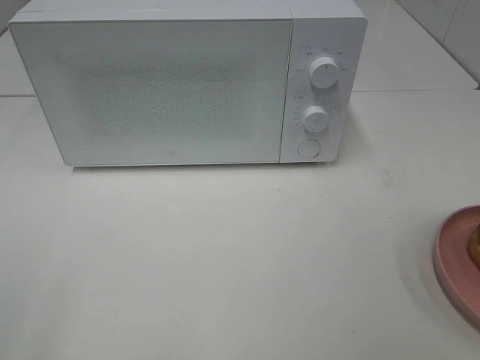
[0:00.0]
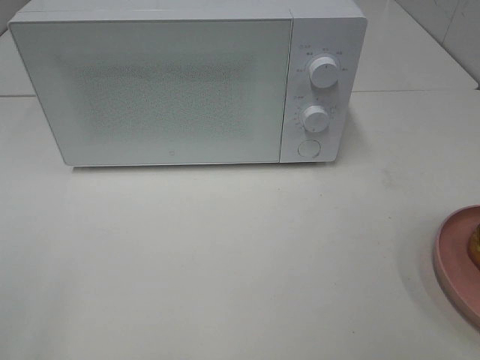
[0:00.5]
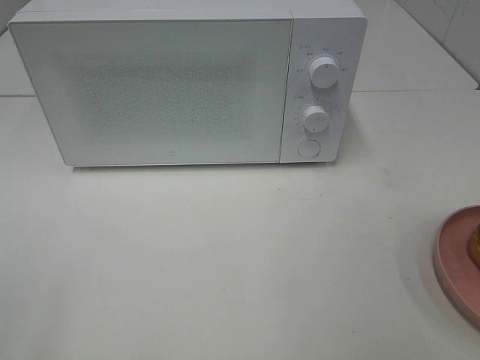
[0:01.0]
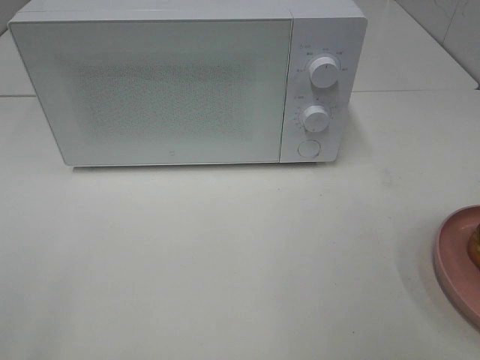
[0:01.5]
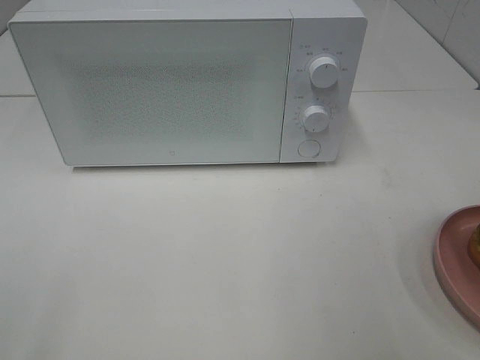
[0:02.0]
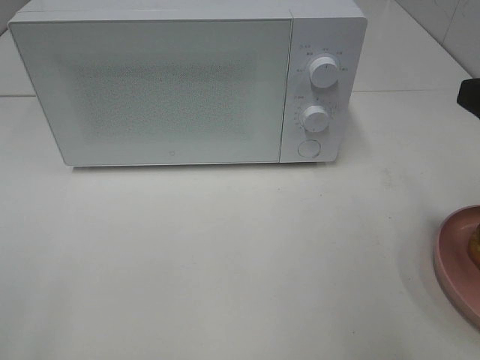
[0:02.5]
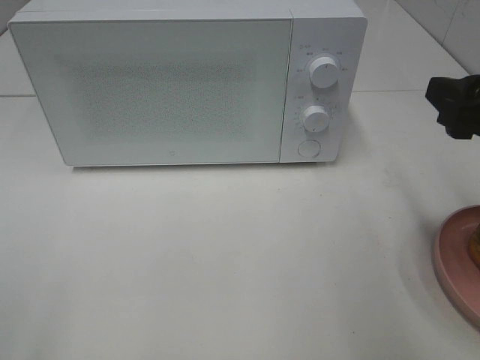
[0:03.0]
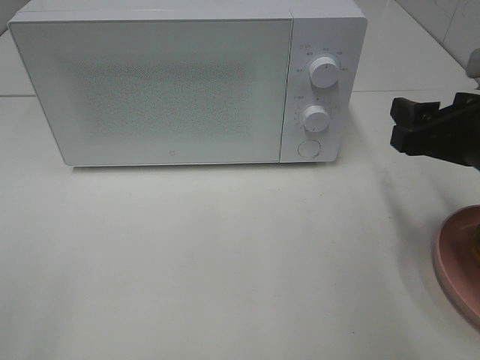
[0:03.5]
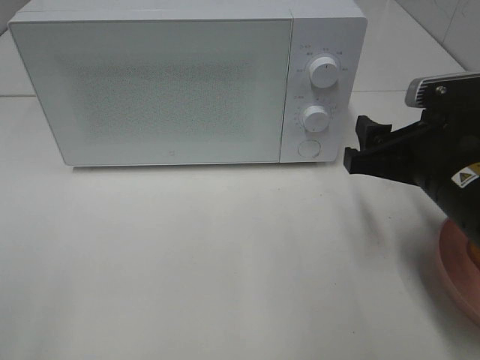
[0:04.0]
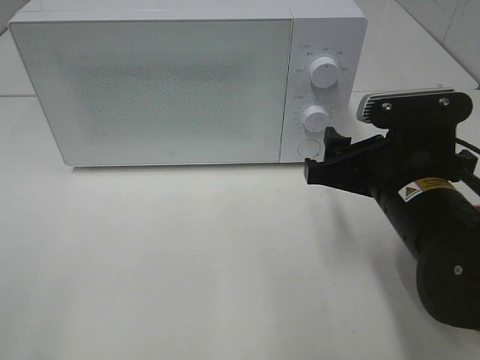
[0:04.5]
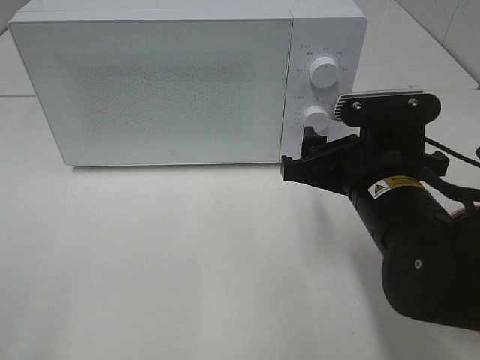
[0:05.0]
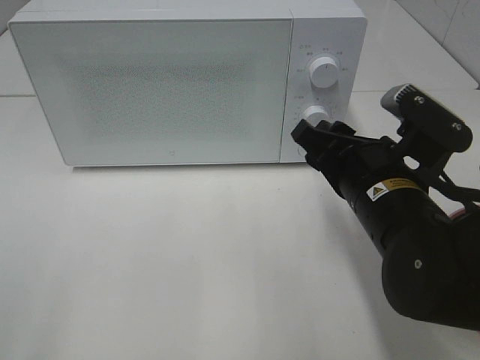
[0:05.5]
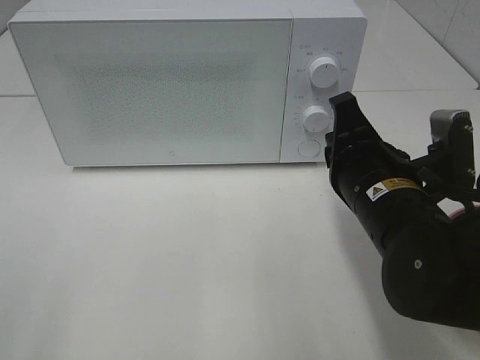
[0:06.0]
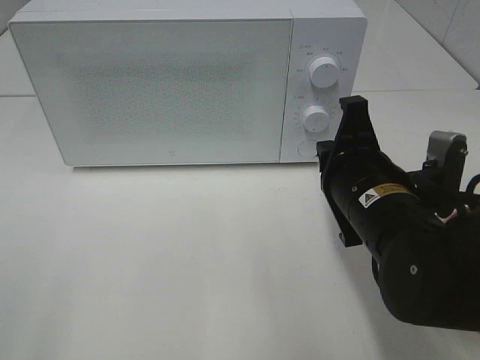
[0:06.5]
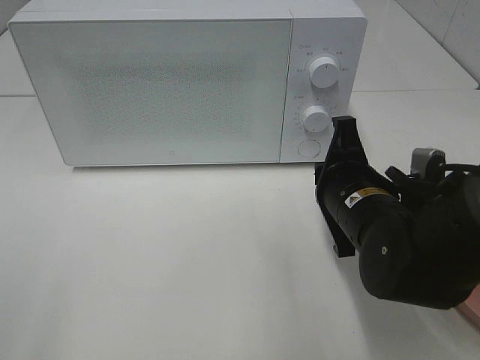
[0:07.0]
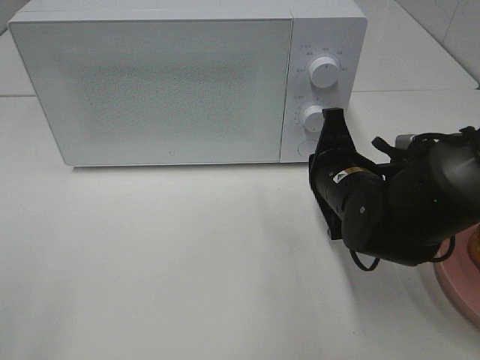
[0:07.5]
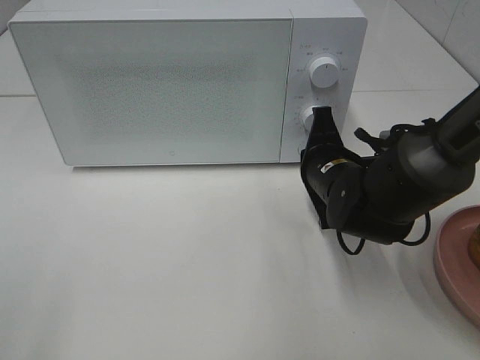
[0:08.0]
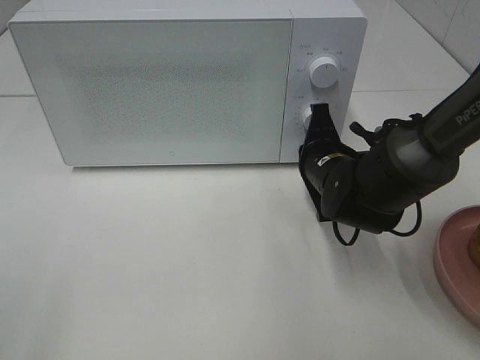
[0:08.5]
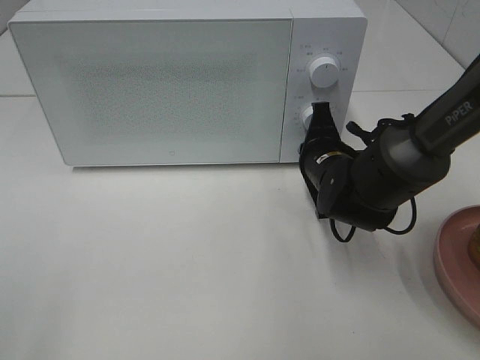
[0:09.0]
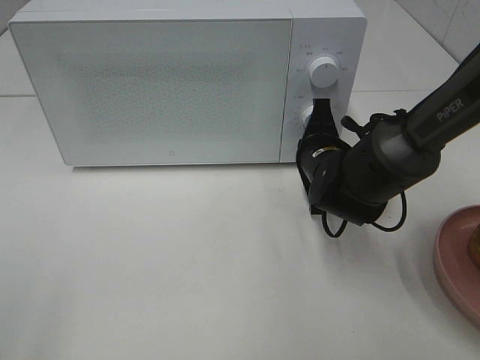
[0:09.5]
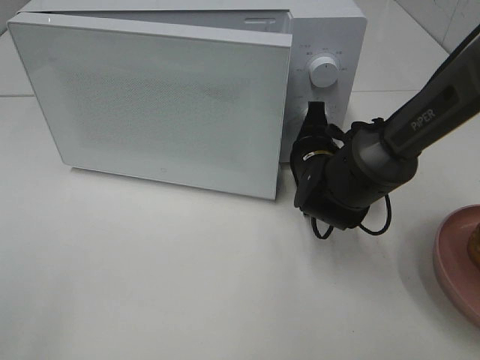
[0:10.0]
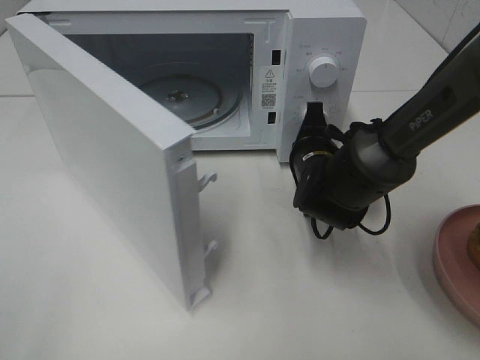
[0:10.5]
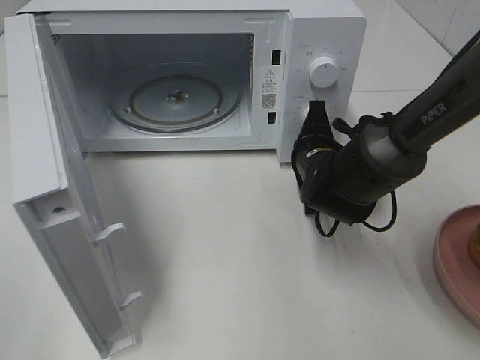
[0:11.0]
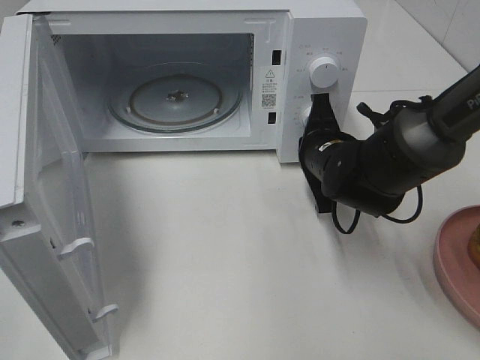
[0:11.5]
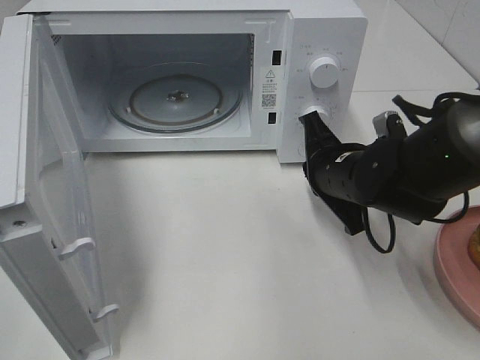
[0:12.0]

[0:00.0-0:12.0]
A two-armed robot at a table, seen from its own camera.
Task of the whole recording: Heat the burger.
Step, 0.0 to 11.5 s: Right hand: press the switch.
2.0 to 4.0 s: The right gripper goes about 15 cm downward, forward and to the left.
4.0 to 6.0 s: The right gripper heads to the left, covering roughly 5 cm, and closes its fingers.
6.0 to 8.0 s: The right gripper shifts some 10 cm forward and downward.
8.0 to 10.0 s: The grippers make only small movements.
10.0 to 12.0 s: The right gripper shifts approximately 5 cm backward.

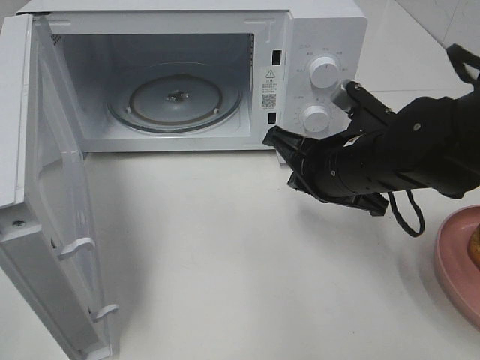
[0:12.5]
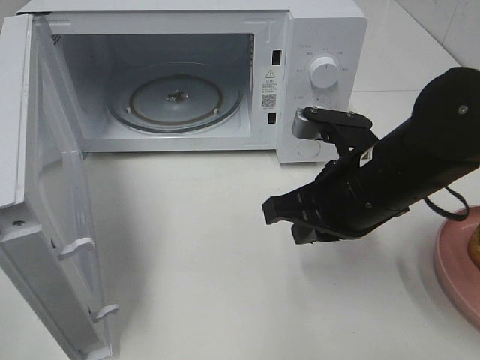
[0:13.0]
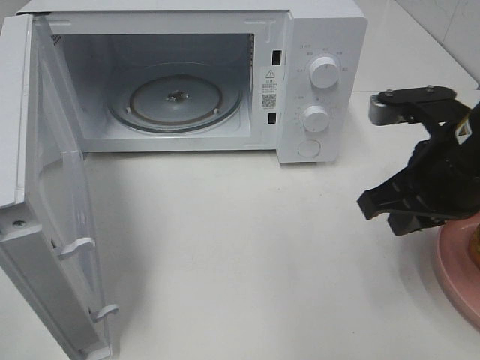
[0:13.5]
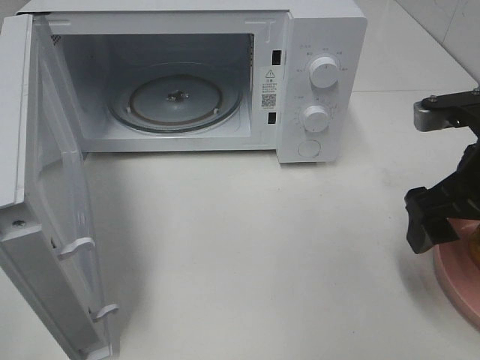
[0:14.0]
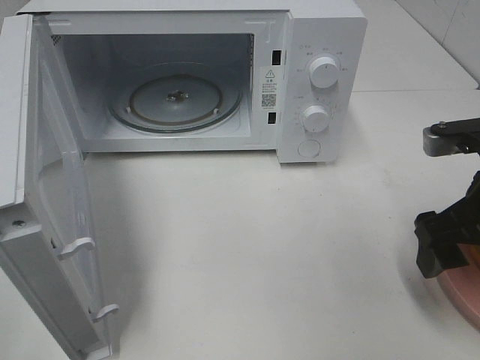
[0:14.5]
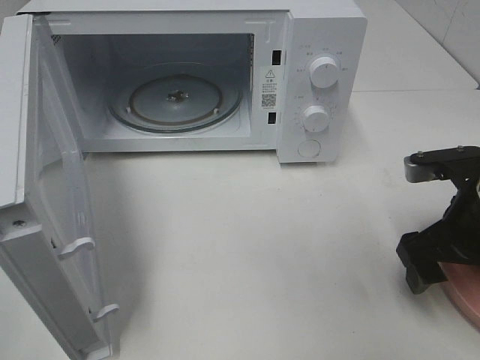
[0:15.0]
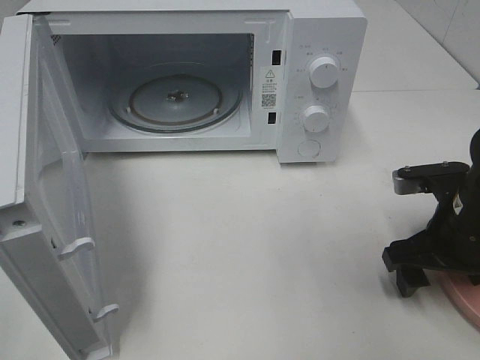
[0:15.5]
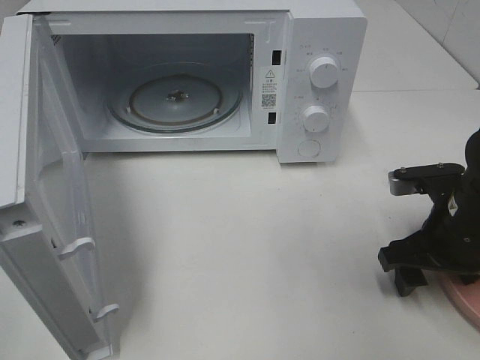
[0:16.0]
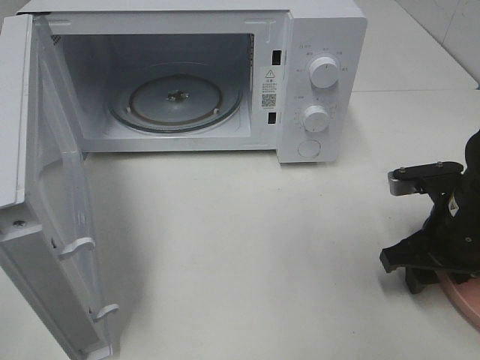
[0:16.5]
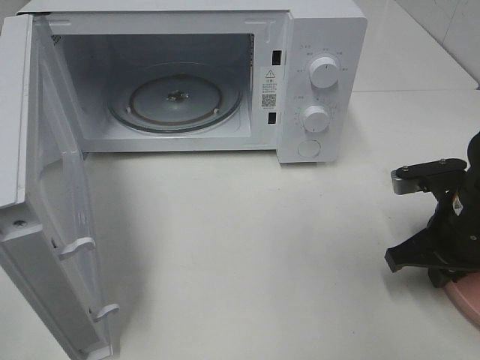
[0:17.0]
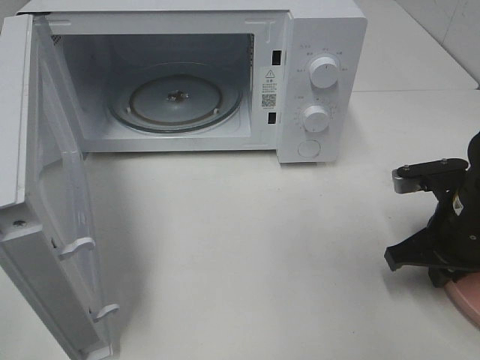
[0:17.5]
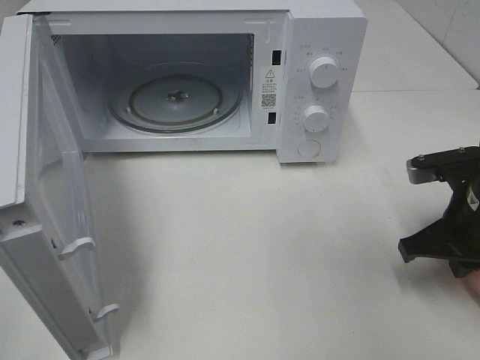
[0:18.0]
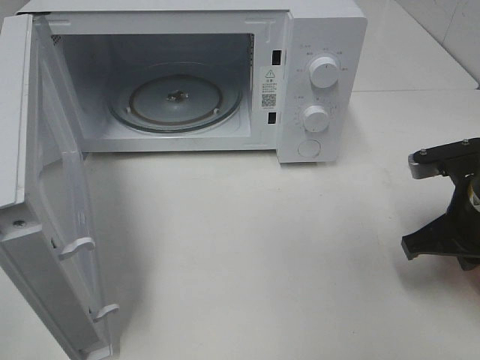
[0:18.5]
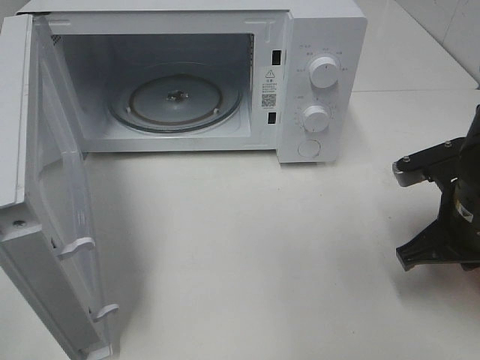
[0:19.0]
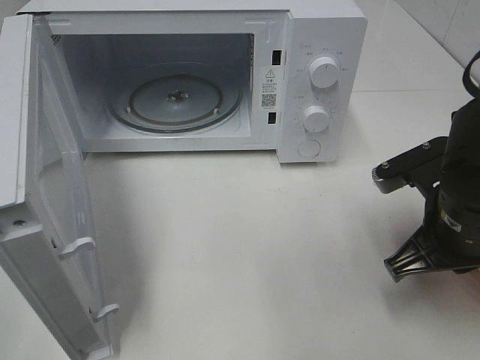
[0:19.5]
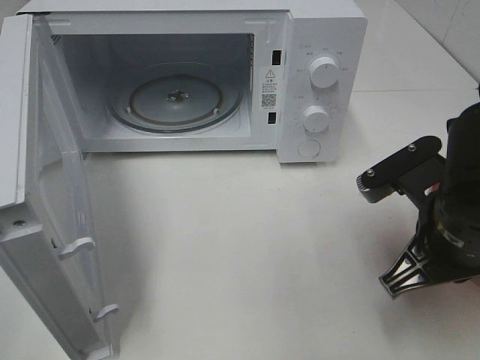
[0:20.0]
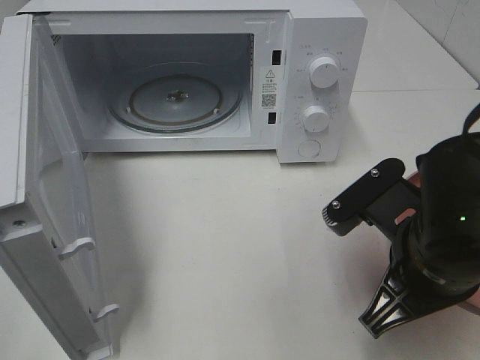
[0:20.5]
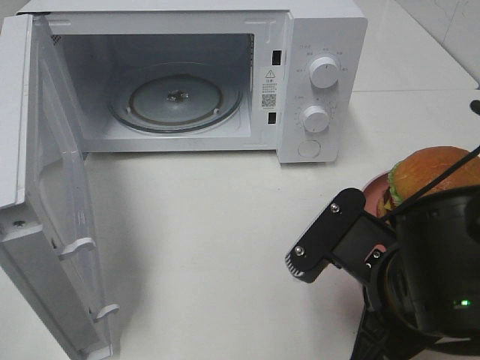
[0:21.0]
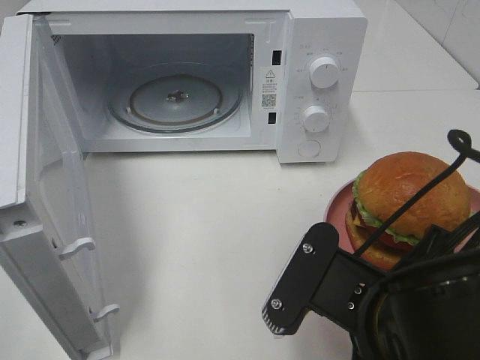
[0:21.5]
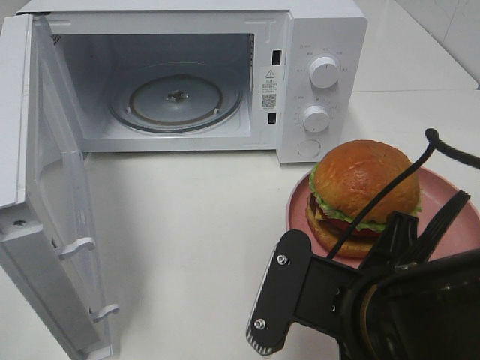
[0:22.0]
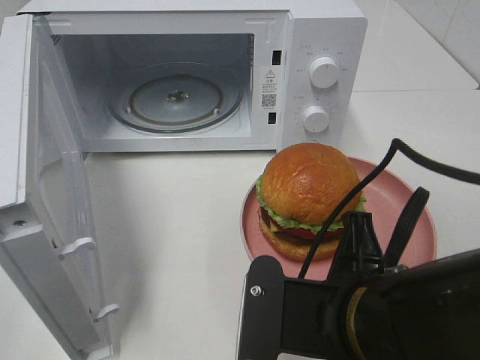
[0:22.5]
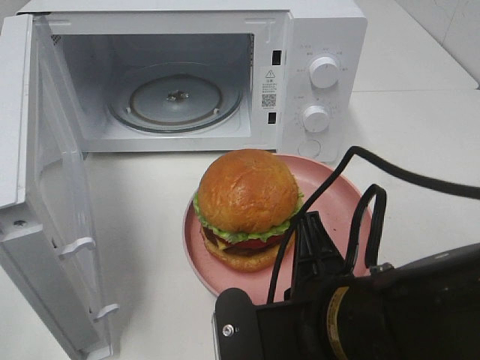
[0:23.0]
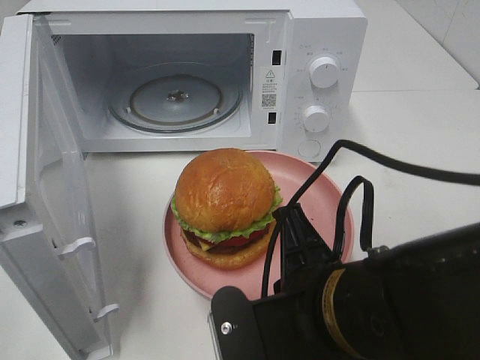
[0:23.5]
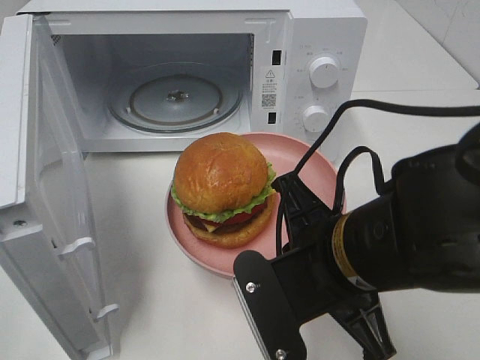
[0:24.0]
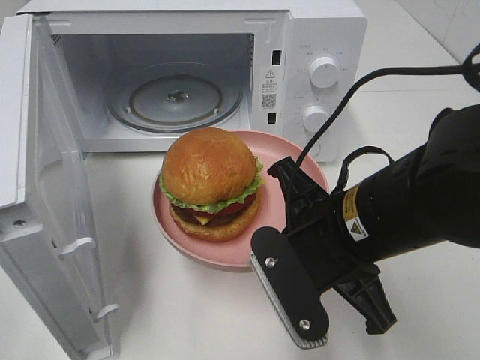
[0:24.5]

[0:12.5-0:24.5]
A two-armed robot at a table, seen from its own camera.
Task of the whole recording: Heat the burger.
Step, 12.5 to 17.5 s: Right hand: grab the plate with the hamburger.
12.5 to 14.5 s: The right gripper moves to the right and backward, about 15 cm, and opens its fingers.
14.5 to 16.5 s: The right gripper is displaced downward by some 10 cm.
16.5 to 18.5 s: The right gripper closes.
18.5 to 20.5 s: The right gripper shifts about 10 cm to the left and backward.
20.5 to 22.5 s: The right gripper heads to the left and backward, covering some 10 cm.
22.5 to 24.5 s: The right gripper heads forward, covering some 10 cm.

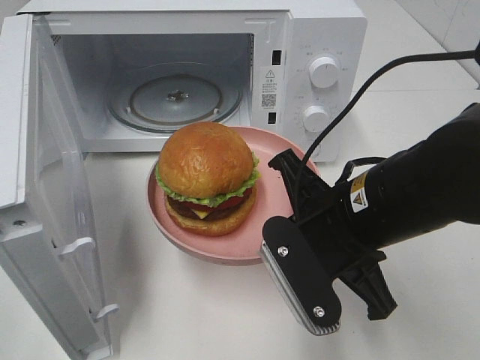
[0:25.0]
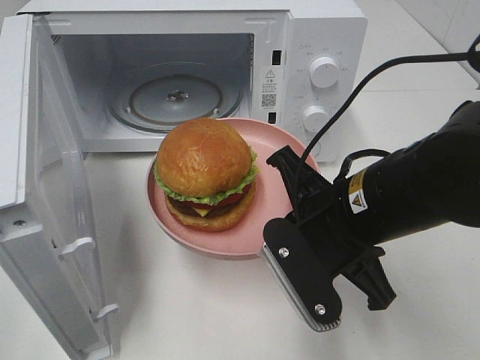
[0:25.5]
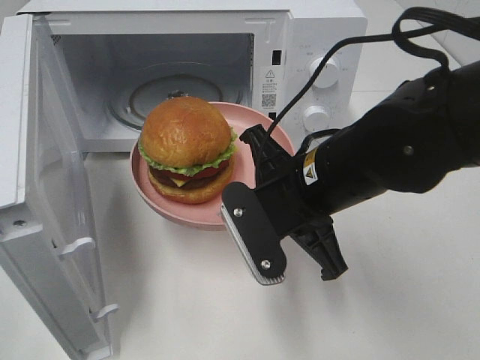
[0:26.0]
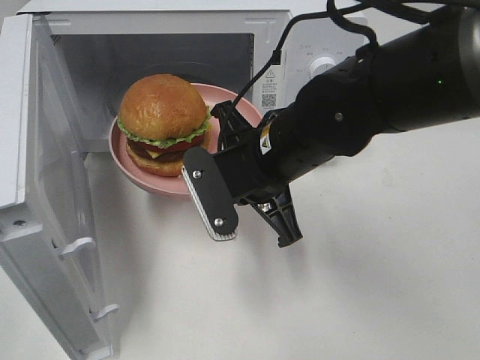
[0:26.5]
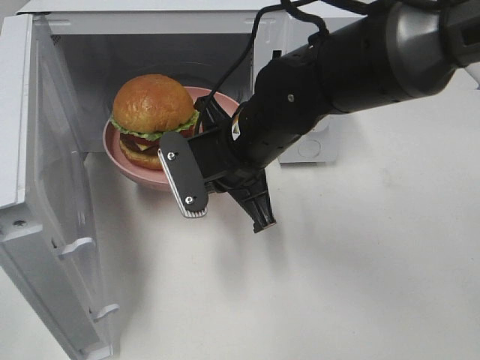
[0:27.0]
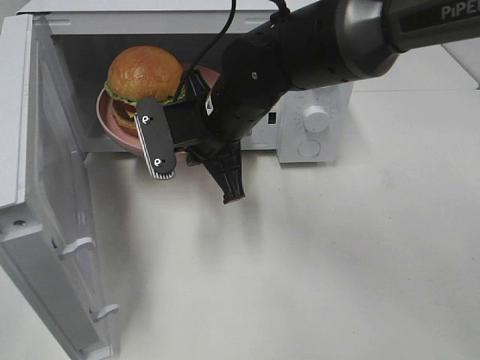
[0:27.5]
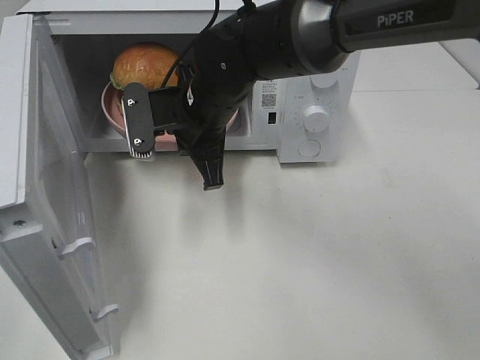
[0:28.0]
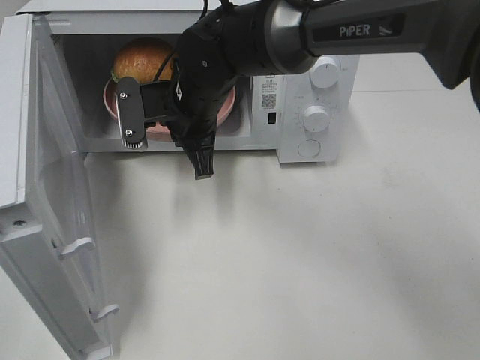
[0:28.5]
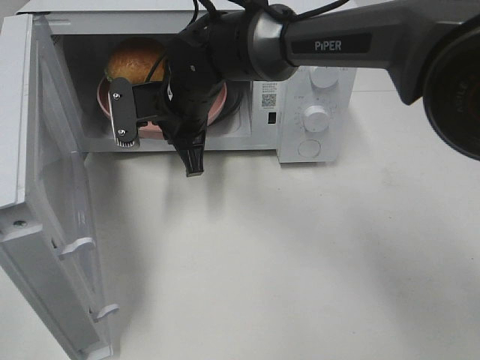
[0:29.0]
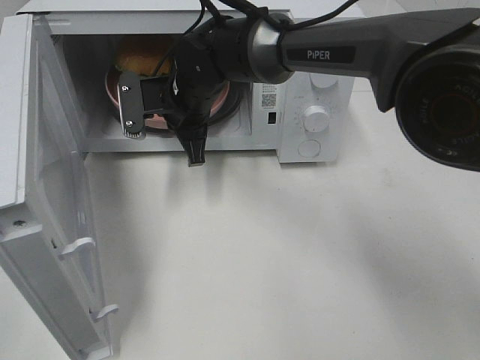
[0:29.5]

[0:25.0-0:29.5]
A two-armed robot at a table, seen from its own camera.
Task of the whole recording: Heat the burger.
25.0 to 27.0 s: The right gripper heads forward and to the left, covering about 15 cm.
27.0 to 29.5 s: The right gripper shifts about 15 cm forward and to the left.
